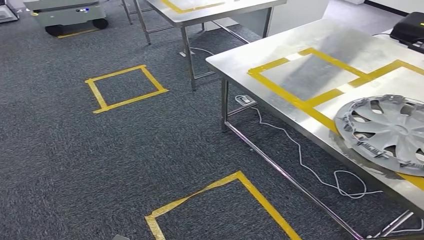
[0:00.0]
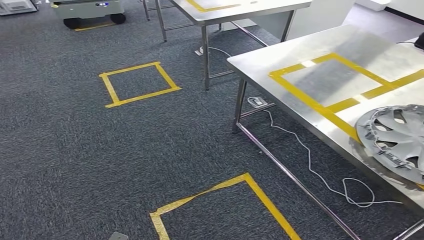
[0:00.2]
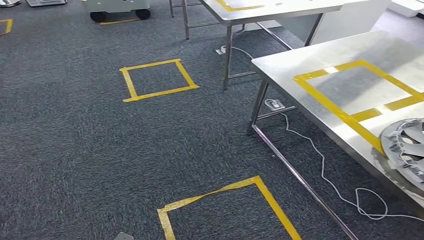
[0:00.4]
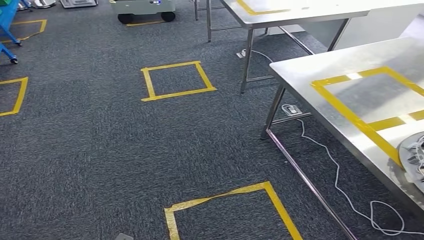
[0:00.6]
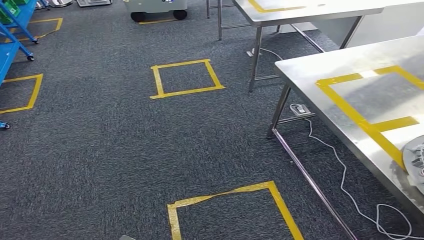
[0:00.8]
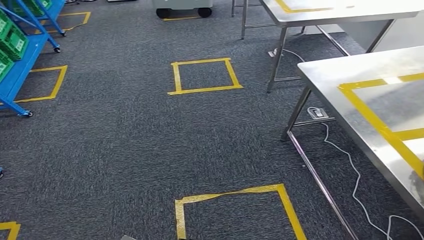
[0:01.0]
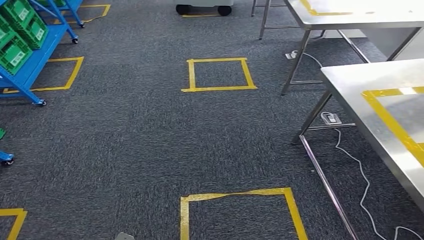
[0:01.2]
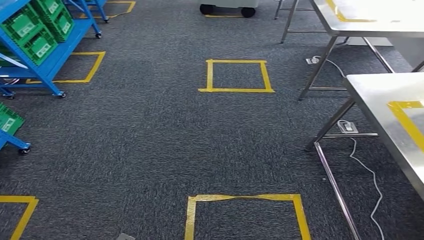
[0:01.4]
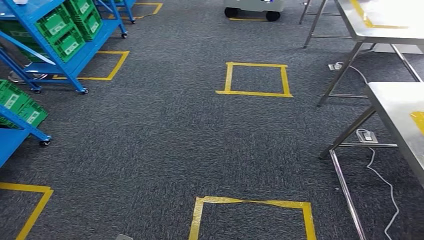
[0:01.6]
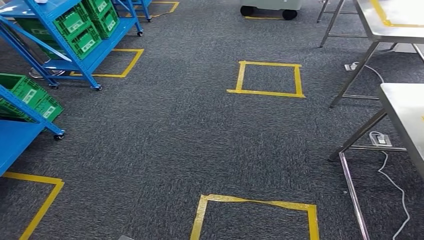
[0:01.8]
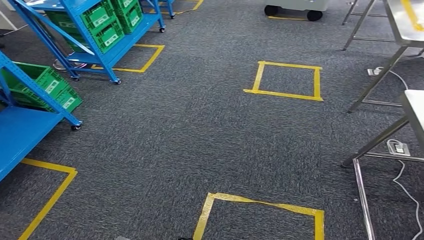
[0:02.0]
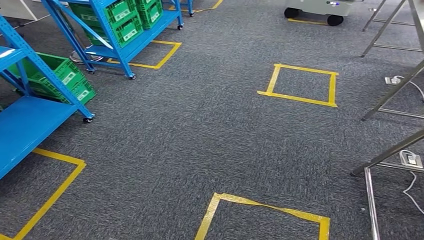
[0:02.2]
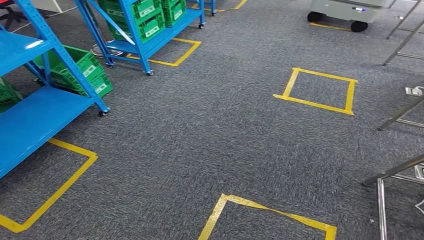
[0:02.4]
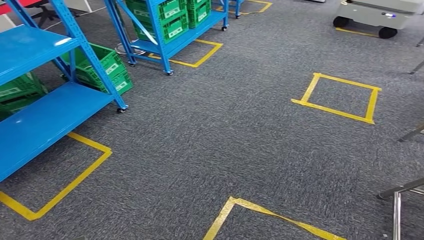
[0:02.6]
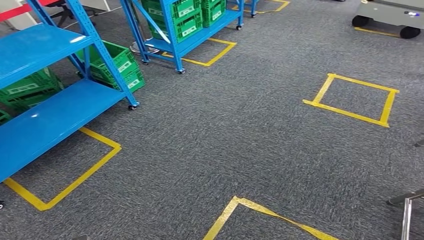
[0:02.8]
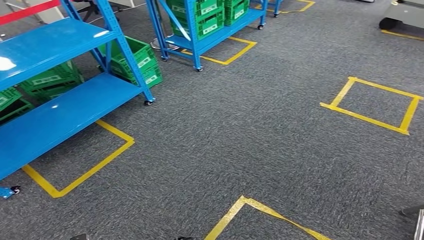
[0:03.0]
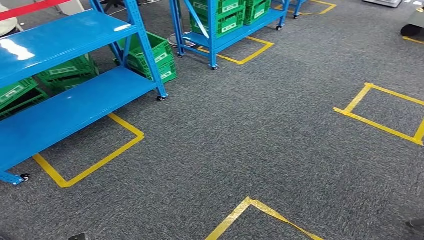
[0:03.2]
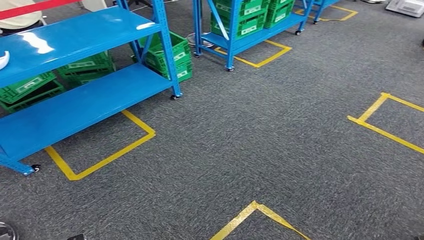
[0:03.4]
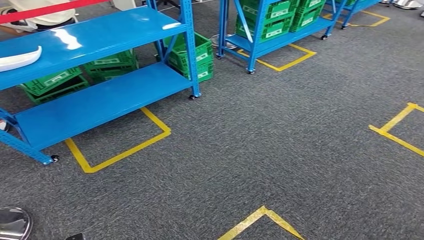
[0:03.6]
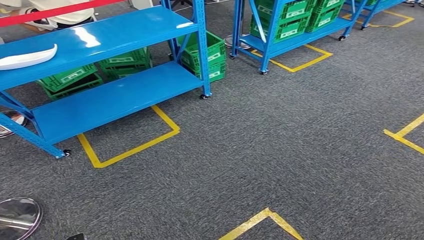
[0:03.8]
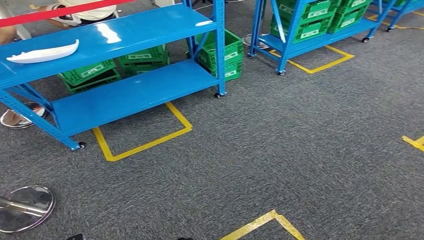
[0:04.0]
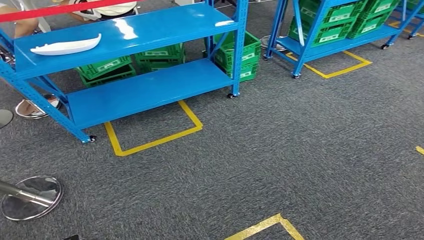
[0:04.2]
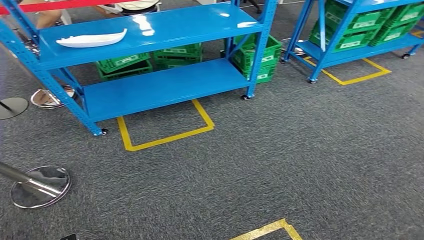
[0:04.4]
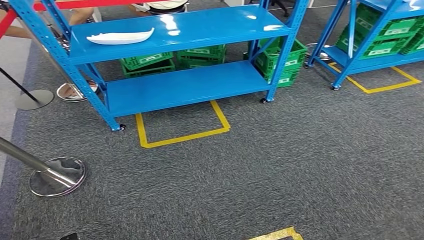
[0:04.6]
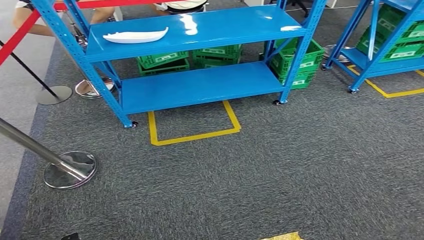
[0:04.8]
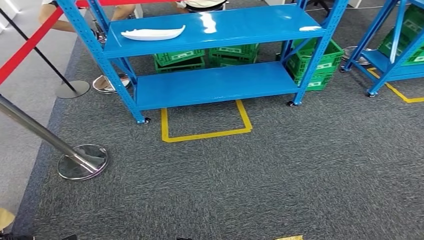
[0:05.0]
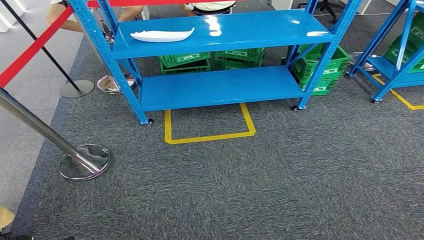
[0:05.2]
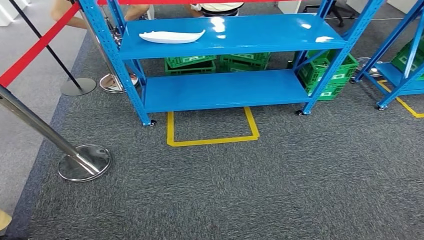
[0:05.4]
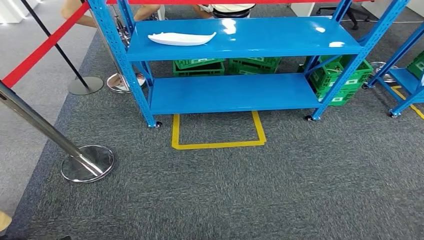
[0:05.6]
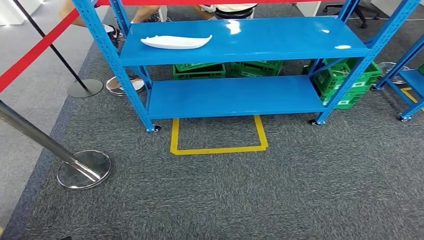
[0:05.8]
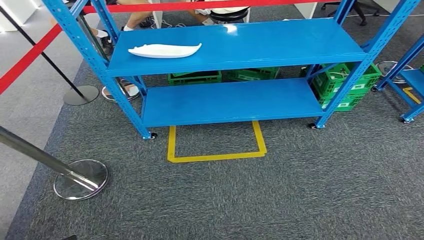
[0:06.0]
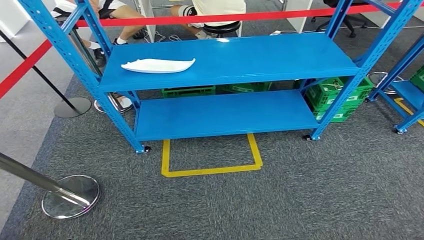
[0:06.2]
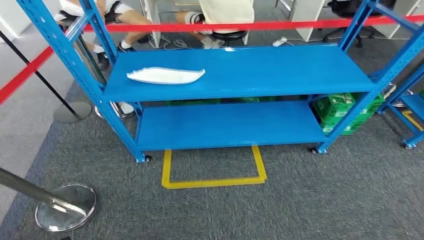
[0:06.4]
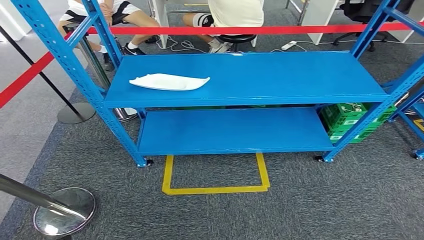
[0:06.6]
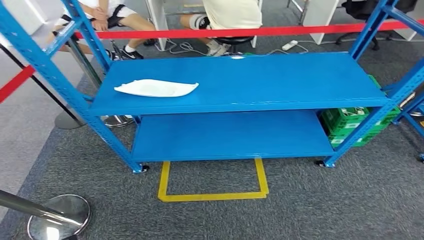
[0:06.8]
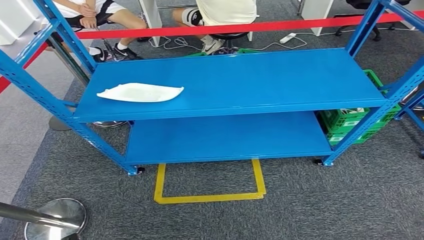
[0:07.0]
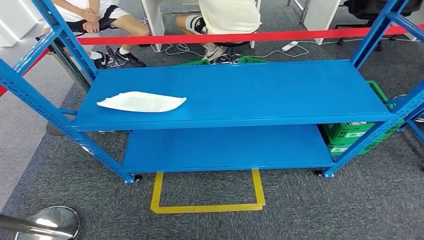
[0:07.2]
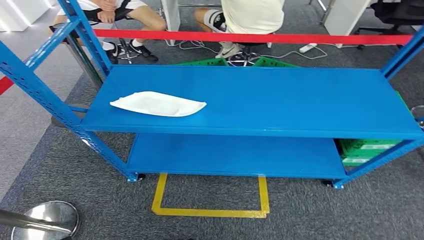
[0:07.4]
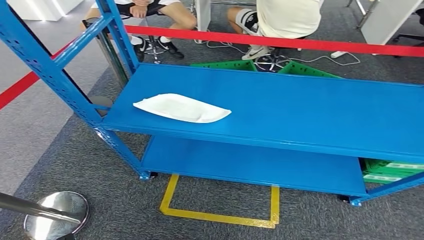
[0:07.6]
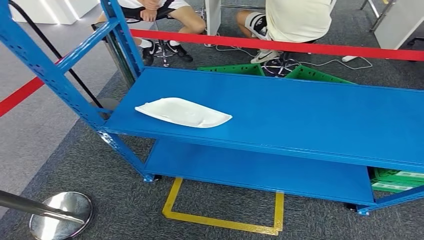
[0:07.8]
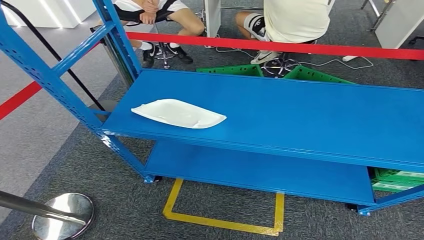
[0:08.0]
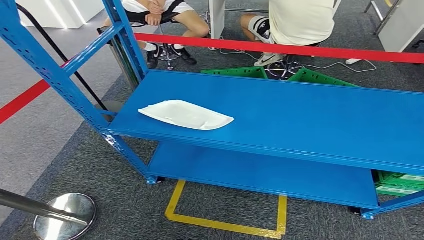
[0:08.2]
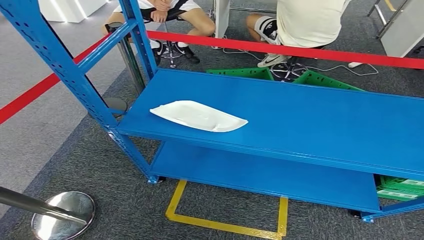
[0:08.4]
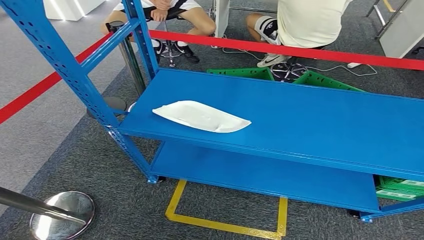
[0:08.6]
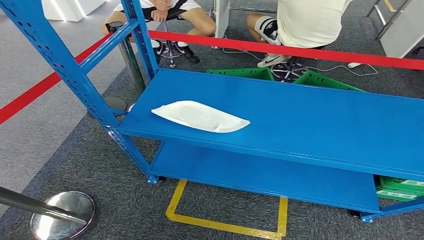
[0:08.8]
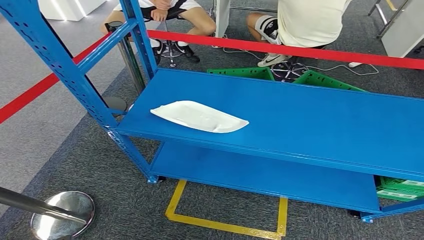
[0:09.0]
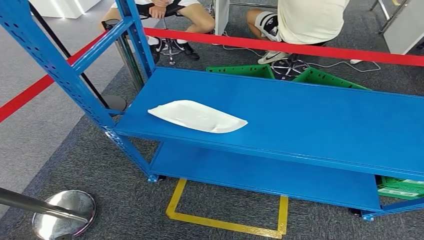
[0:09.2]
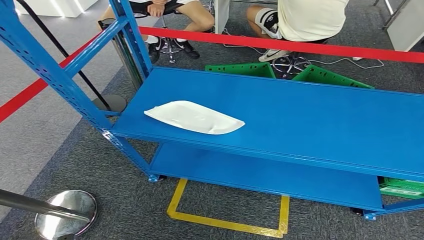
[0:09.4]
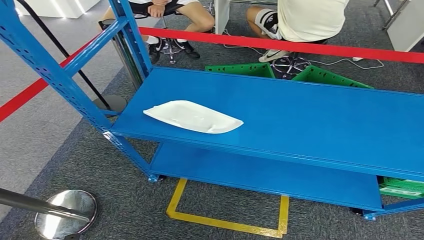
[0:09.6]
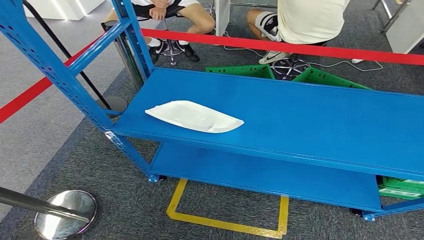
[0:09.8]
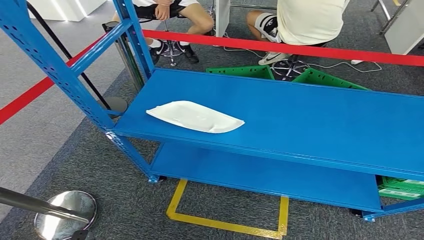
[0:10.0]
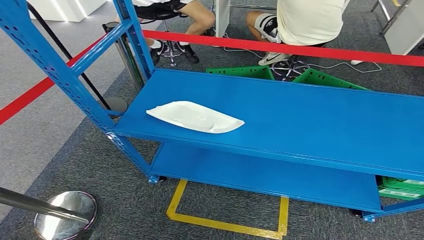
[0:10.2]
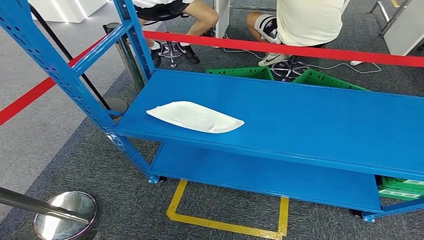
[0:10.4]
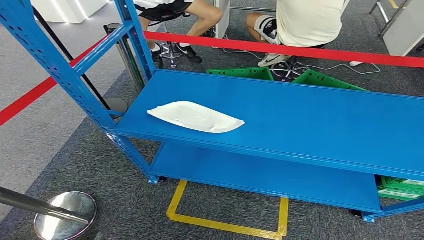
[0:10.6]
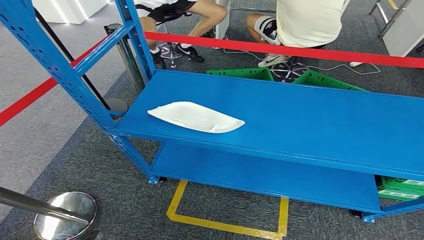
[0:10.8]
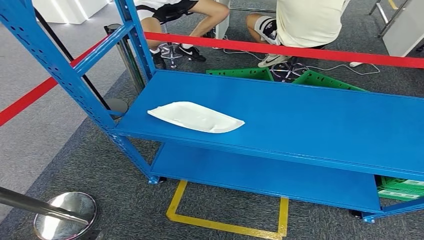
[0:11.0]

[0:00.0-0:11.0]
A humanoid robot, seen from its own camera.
Step, 0:00.0 to 0:11.0: Return to the initial position at the workbench.
